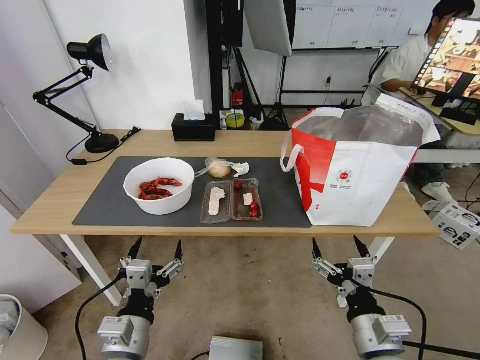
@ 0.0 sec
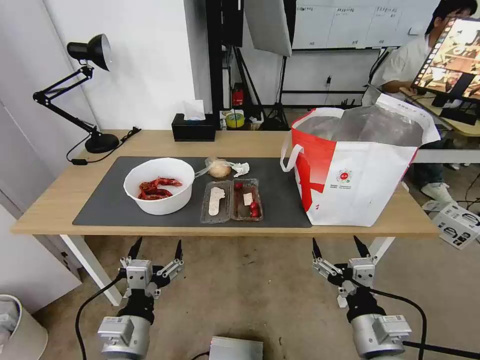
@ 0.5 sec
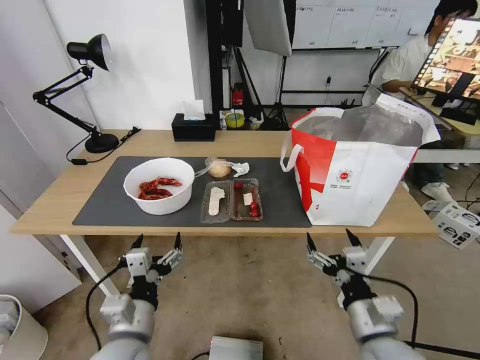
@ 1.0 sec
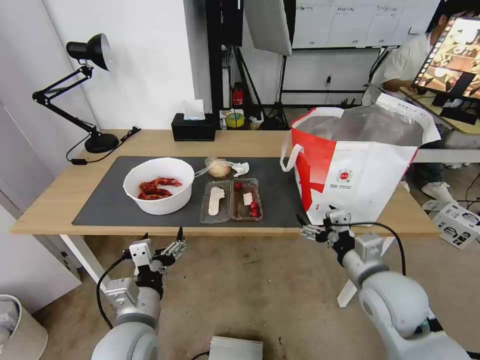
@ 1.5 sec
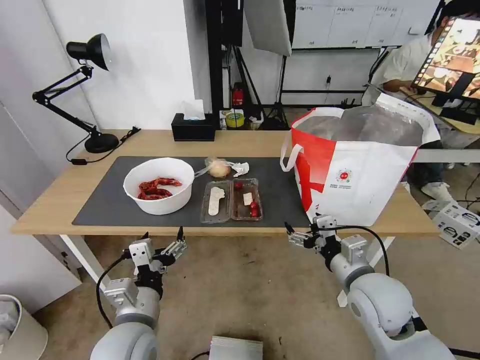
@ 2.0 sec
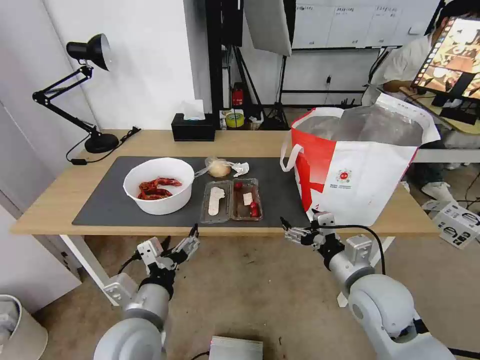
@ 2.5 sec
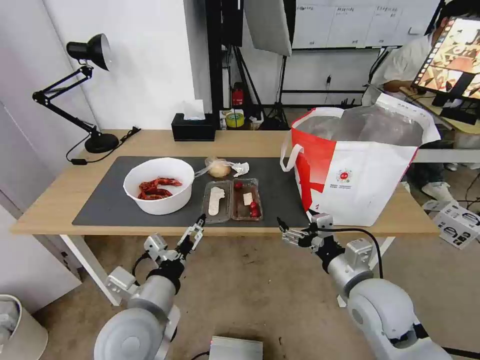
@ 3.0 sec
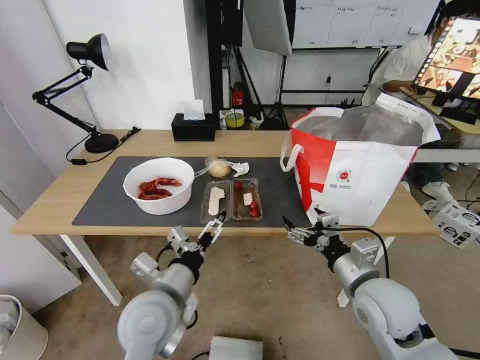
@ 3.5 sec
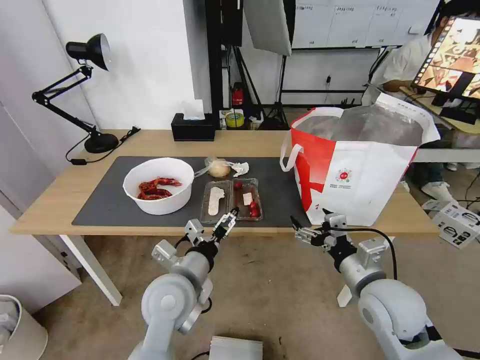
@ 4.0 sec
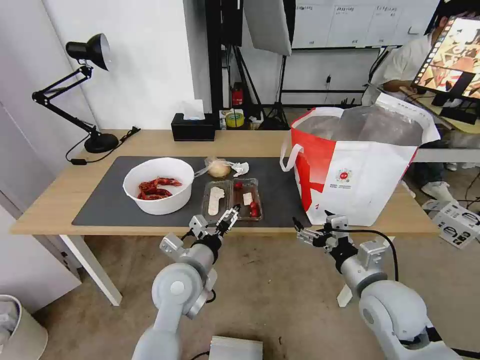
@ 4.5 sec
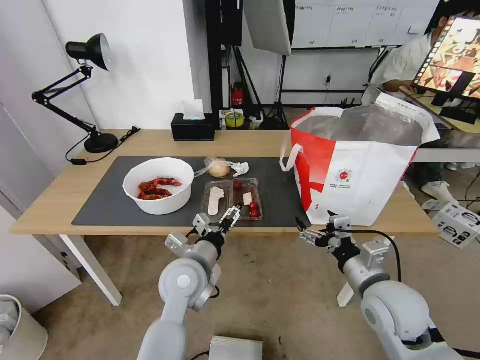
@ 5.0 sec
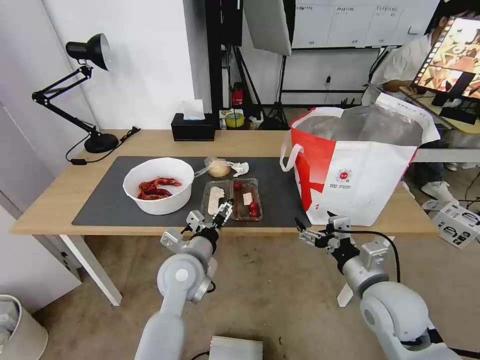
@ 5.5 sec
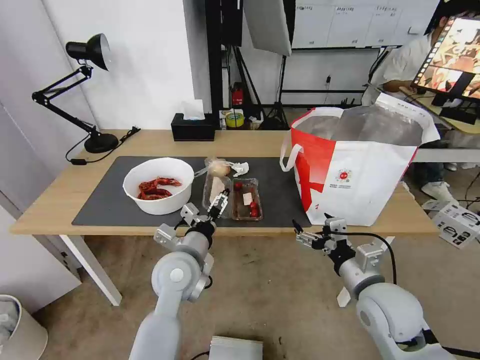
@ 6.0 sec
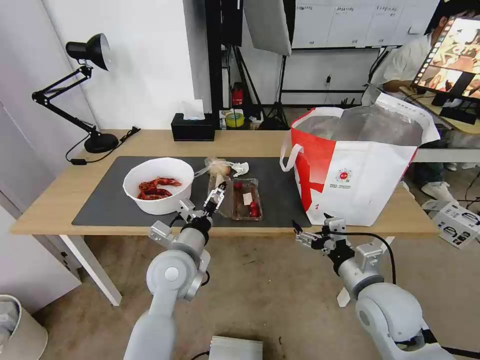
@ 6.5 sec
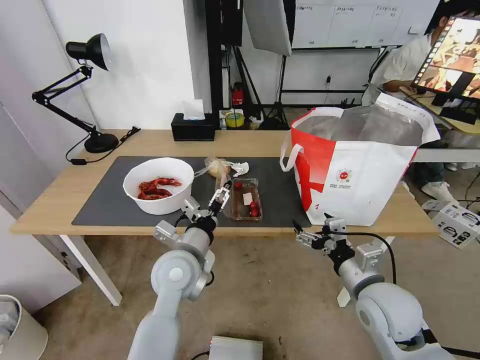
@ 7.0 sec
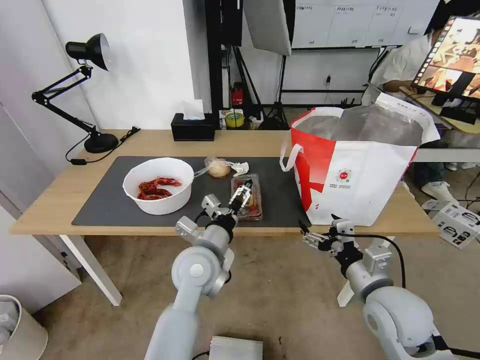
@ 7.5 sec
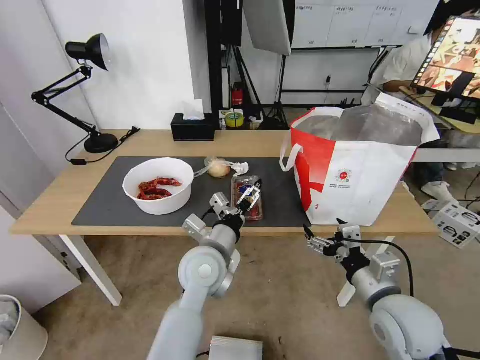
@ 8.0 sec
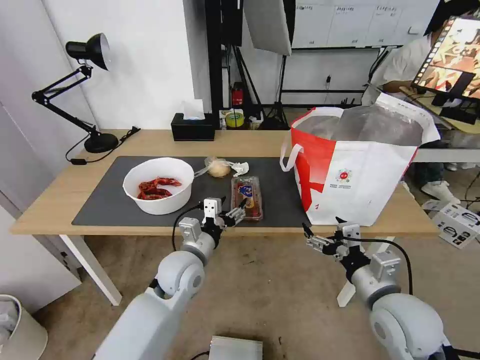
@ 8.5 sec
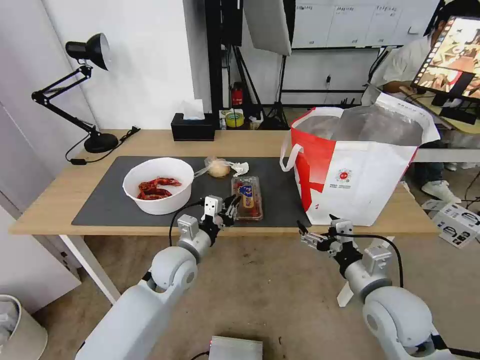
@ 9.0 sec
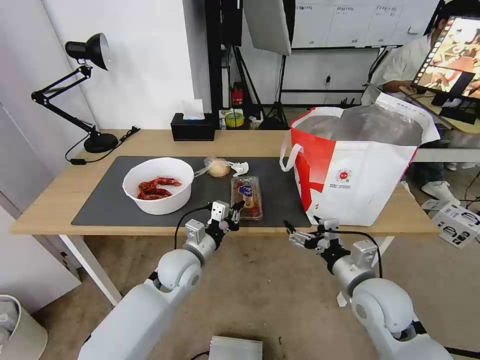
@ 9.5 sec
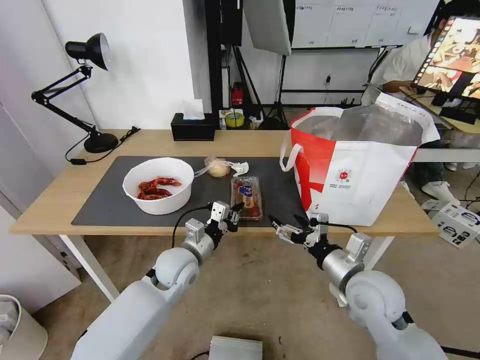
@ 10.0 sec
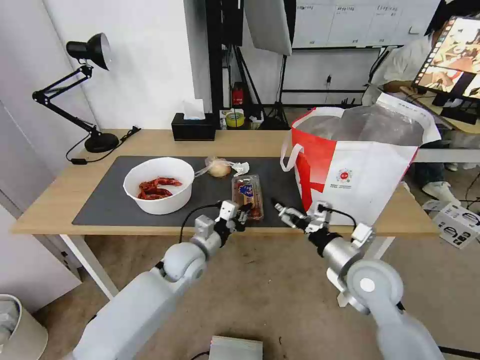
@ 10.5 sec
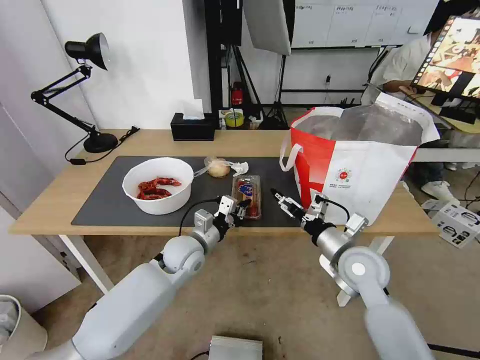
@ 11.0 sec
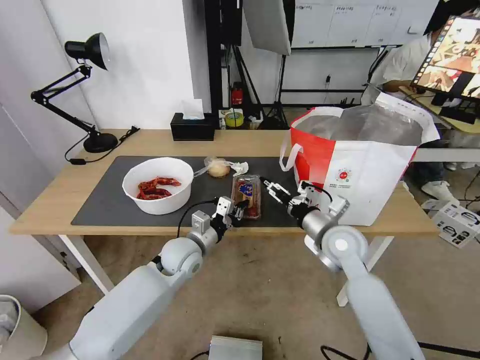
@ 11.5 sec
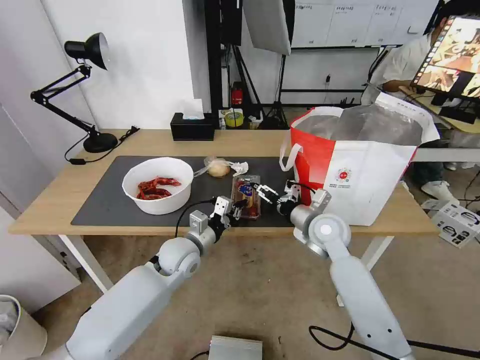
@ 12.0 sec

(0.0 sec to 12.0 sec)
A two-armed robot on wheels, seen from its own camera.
Task of the whole recording: Pick up the trash from the table and place it into the takeout bag.
2.0 sec - 4.0 sec: The left gripper goes roughly 10 cm forward and to the right.
4.0 sec - 6.0 sec: The left gripper ends up approximately 5 cm from where it was.
6.0 sec - 8.0 sec: The left gripper heads to the right, covering approximately 5 cm.
8.0 sec - 10.0 sec: The left gripper goes roughly 10 cm downward and to the left, and closes its fingers. Meanwhile the right gripper heads forward, covering approximately 5 cm.
10.0 sec - 12.0 sec: The right gripper moves forward, roughly 15 cm.

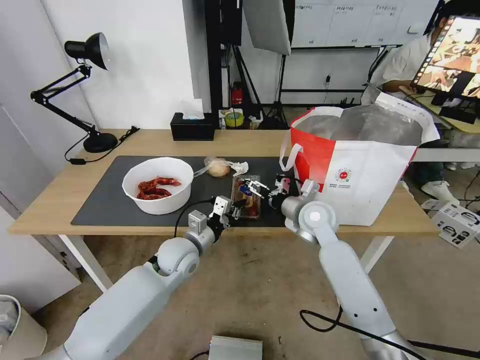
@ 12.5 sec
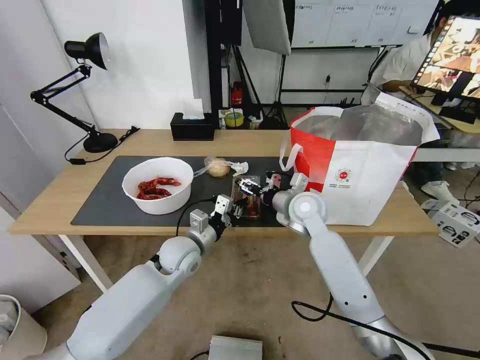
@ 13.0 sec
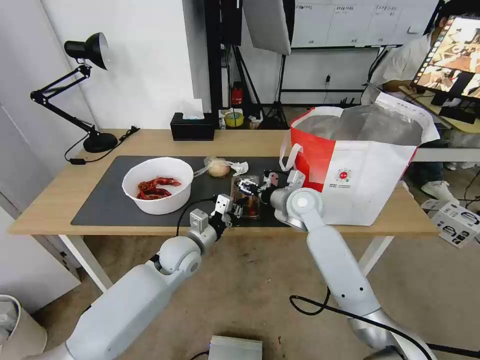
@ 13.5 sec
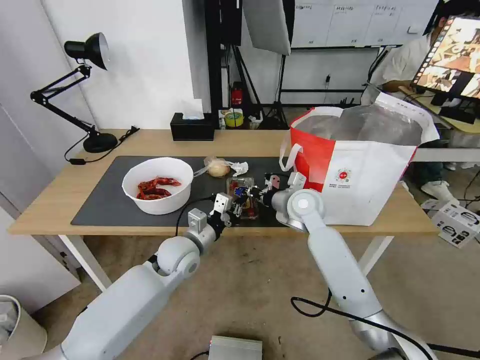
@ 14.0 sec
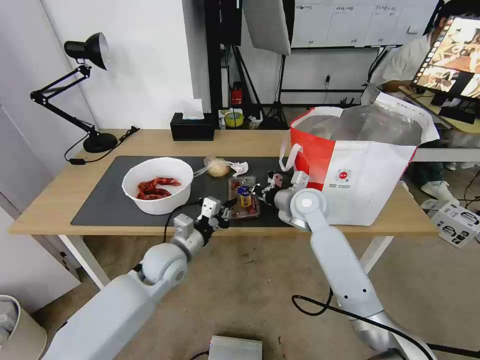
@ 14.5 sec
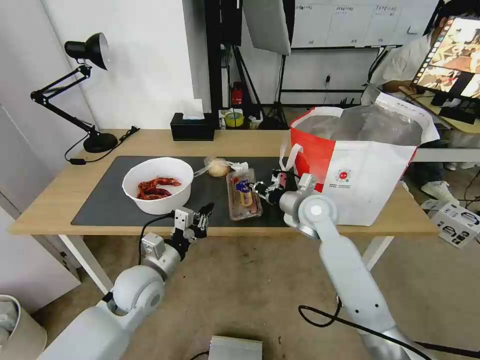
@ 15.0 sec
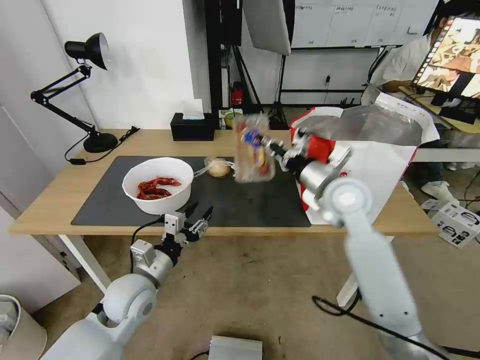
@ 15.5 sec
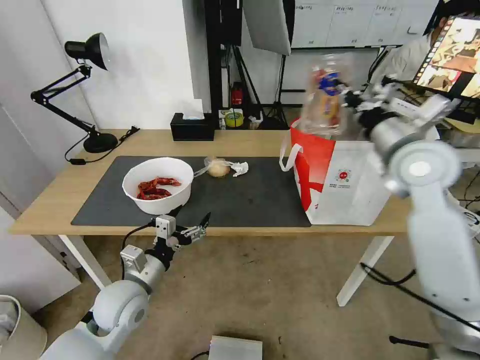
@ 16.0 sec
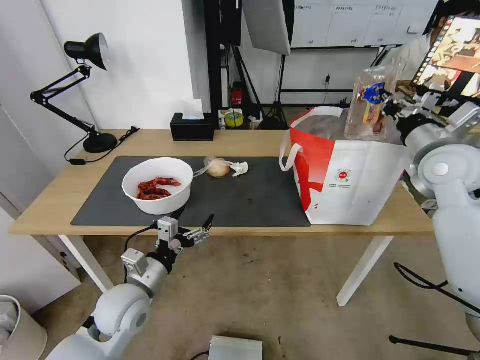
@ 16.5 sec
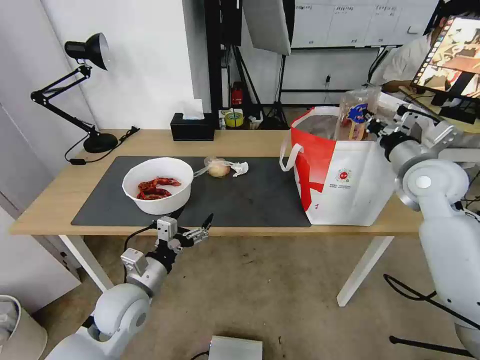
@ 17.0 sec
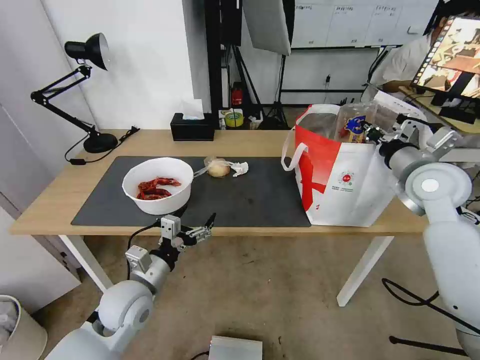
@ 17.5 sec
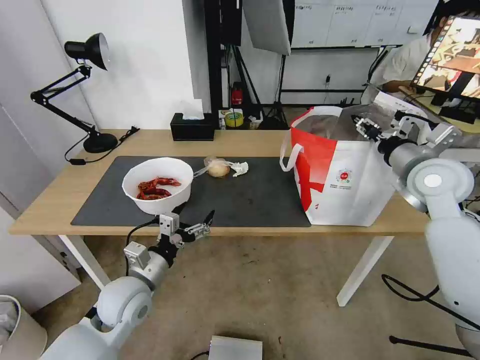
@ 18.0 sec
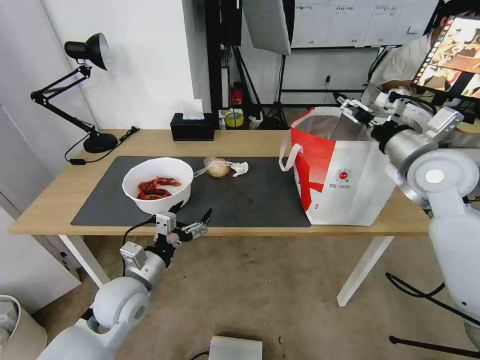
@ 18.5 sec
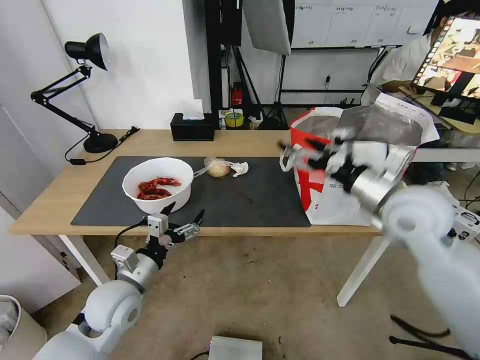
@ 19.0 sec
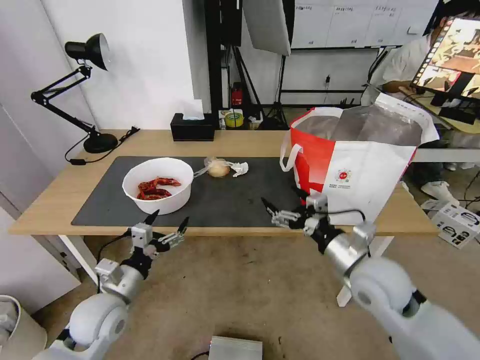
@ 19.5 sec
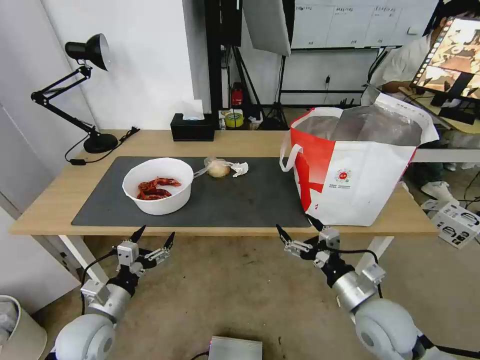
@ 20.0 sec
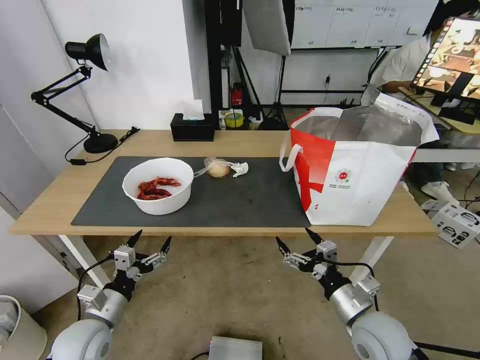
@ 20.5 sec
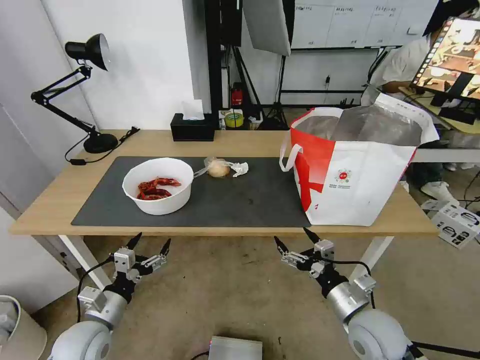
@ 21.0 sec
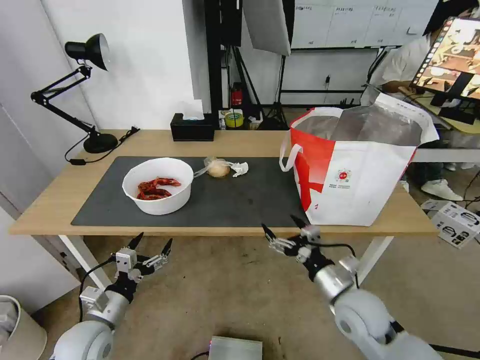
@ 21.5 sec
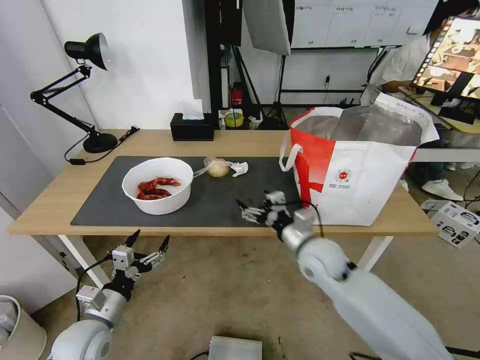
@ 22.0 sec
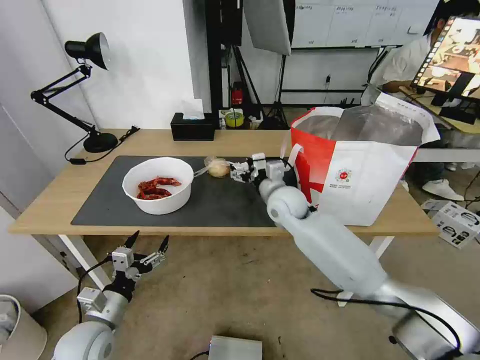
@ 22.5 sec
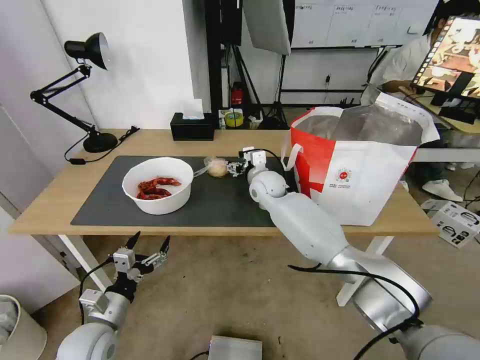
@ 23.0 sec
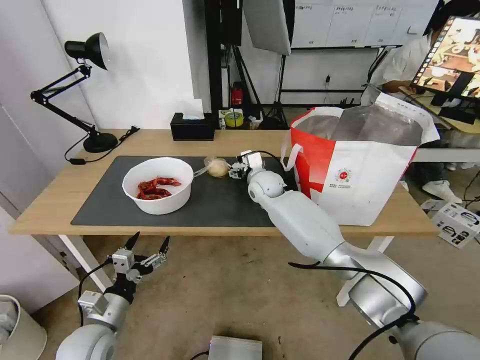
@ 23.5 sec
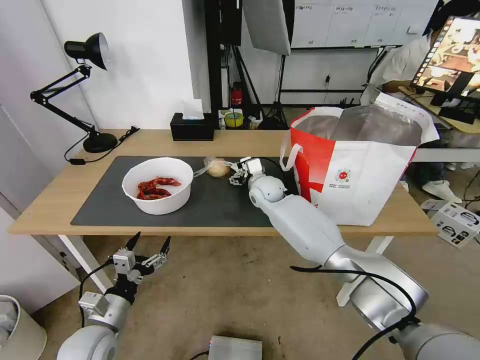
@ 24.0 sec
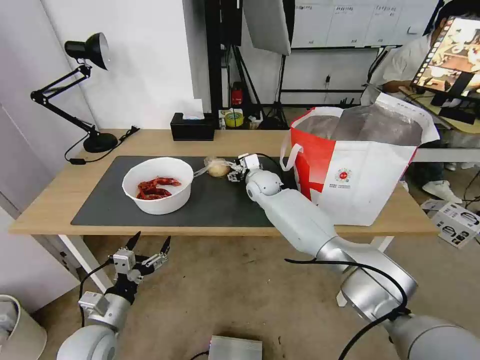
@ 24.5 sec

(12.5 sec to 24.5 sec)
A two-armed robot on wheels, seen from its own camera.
Task of the whole recording: Pick up the trash from the table and place it into the takeout bag.
12.5 sec - 14.5 sec: The right gripper closes.
14.5 sec - 16.5 sec: The left gripper shifts approximately 10 cm backward and to the left, and opens its fingers. The right gripper moves to the right and upward, some 25 cm.
16.5 sec - 18.5 sec: The right gripper opens.
18.5 sec - 20.5 sec: The left gripper moves to the left, downward and backward, roughly 10 cm; the right gripper is displaced downward and backward by approximately 30 cm.
20.5 sec - 22.5 sec: The right gripper is displaced forward and to the left by about 30 cm.
22.5 sec - 24.5 sec: The right gripper is displaced forward by about 10 cm.

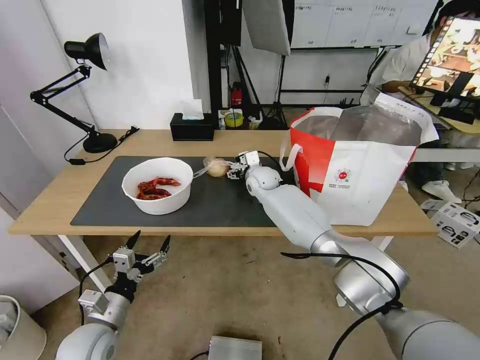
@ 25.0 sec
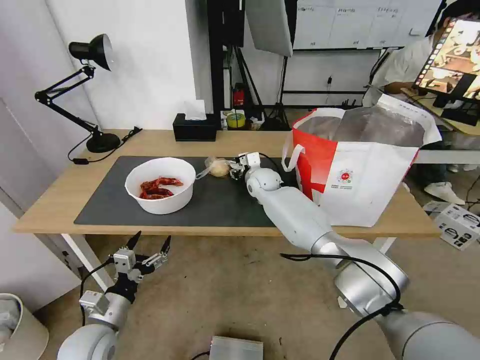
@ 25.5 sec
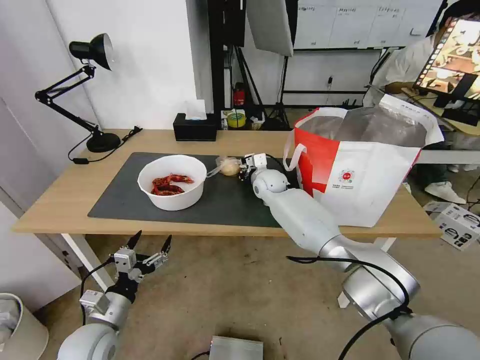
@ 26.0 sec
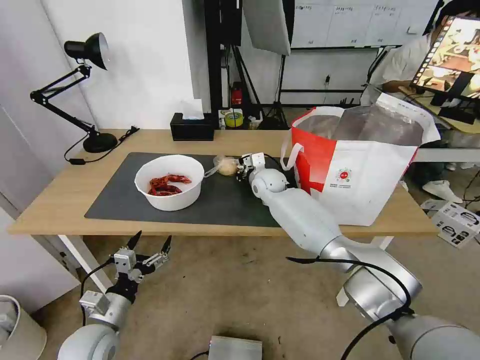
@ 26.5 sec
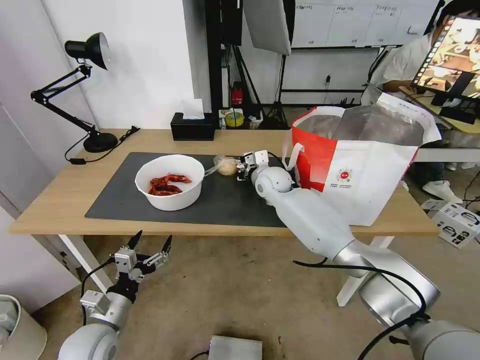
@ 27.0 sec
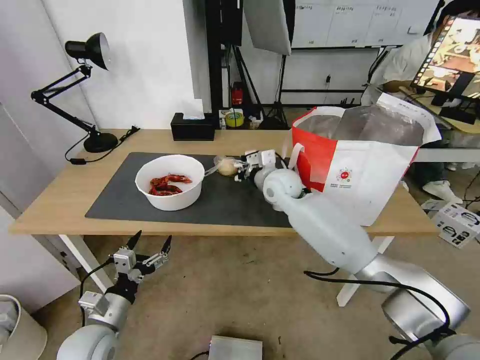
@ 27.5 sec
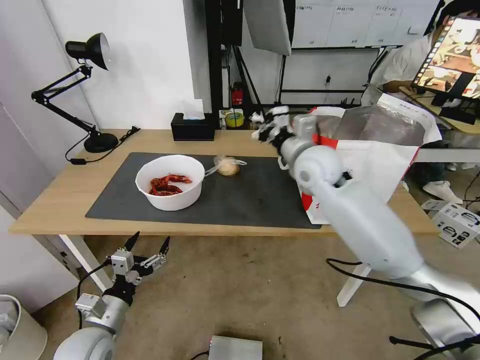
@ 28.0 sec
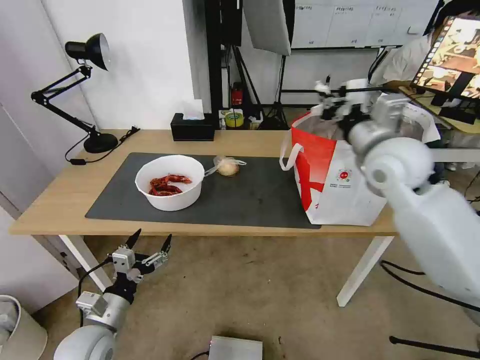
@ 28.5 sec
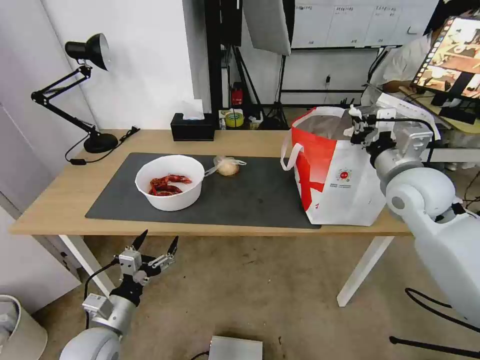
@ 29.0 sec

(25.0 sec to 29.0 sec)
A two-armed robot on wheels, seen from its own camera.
Task of the whole recording: Pick up the trash from the table and place it into the takeout bag.
25.0 sec - 27.0 sec: The right gripper closes.
27.0 sec - 29.0 sec: The right gripper is displaced to the right, backward and upward by approximately 30 cm.
